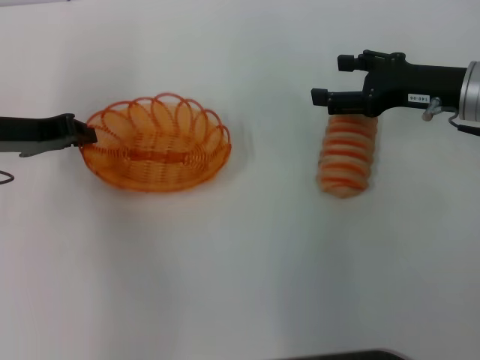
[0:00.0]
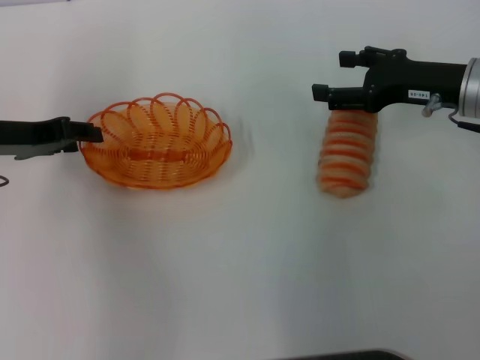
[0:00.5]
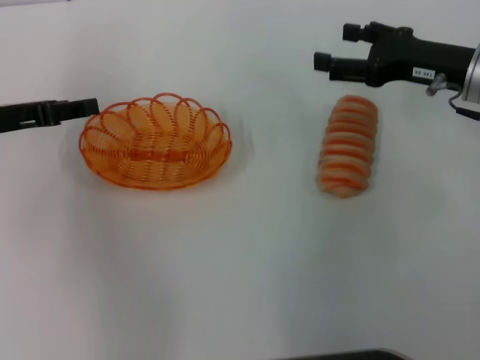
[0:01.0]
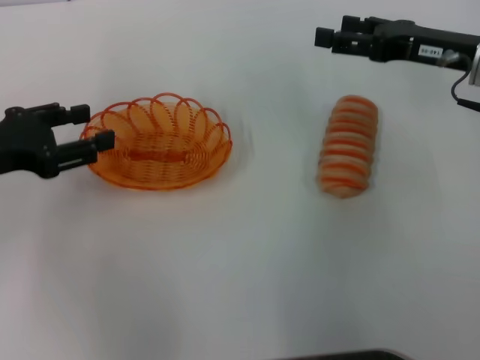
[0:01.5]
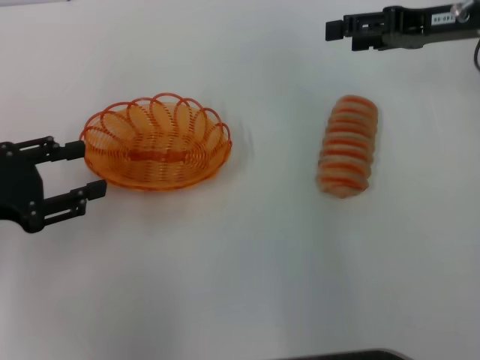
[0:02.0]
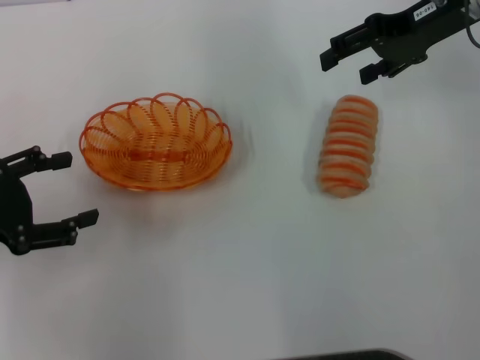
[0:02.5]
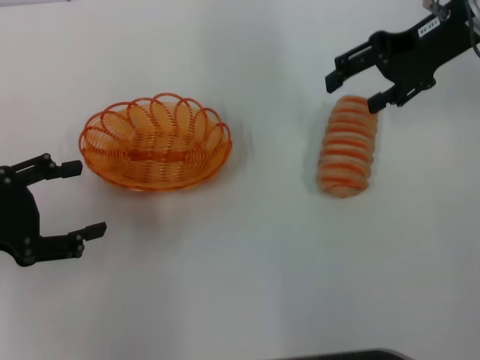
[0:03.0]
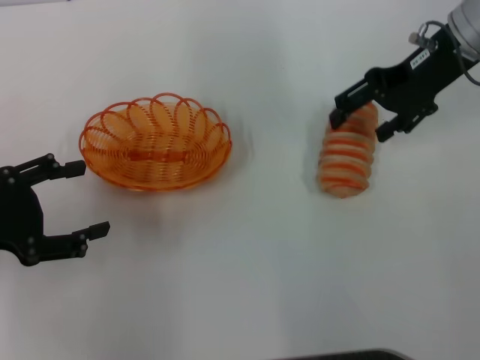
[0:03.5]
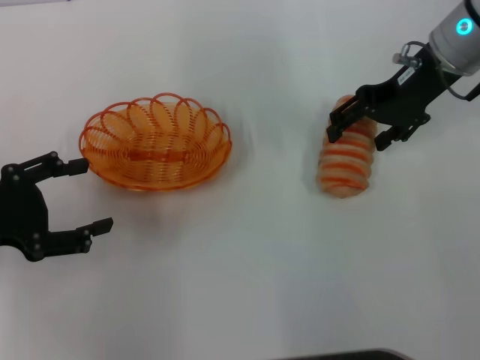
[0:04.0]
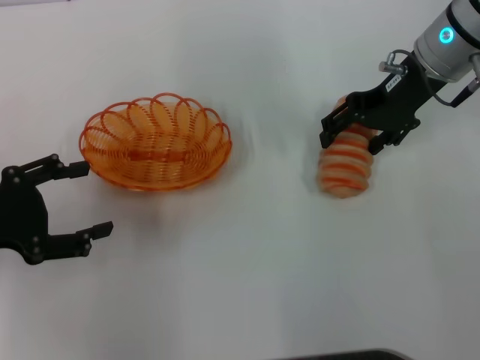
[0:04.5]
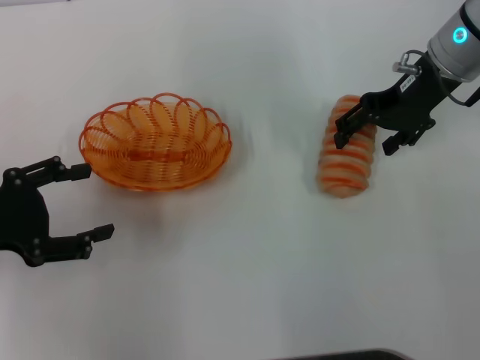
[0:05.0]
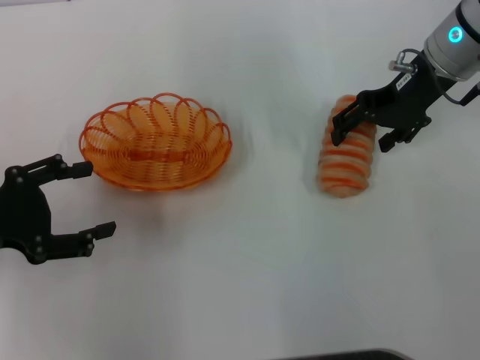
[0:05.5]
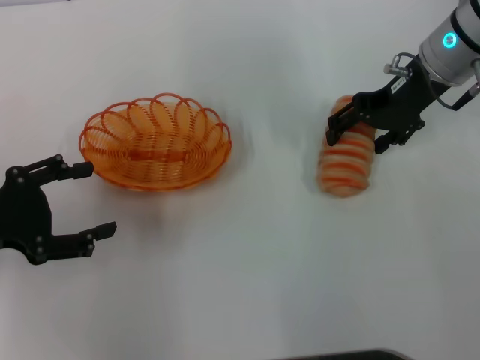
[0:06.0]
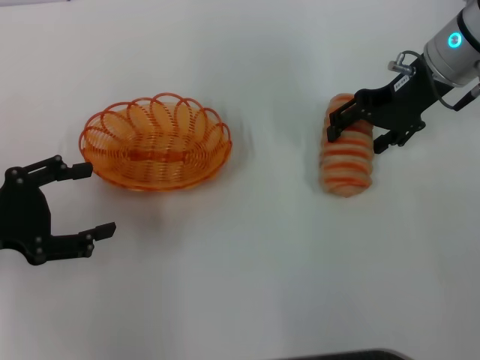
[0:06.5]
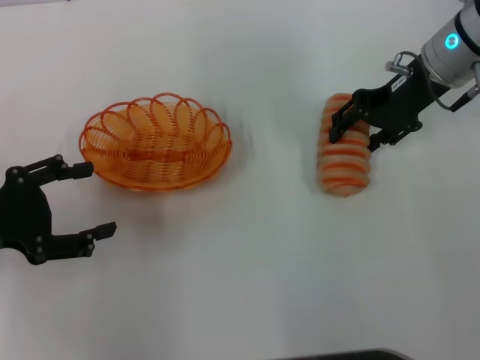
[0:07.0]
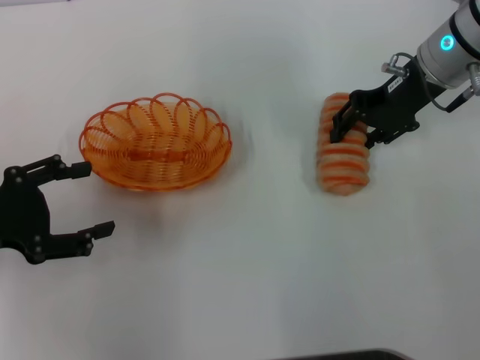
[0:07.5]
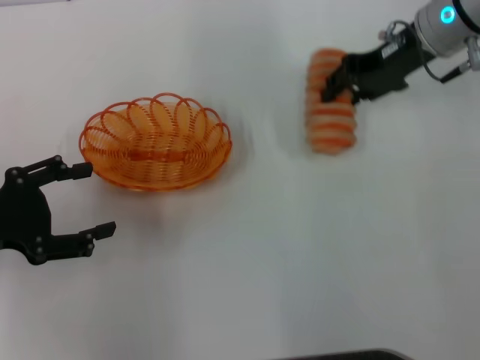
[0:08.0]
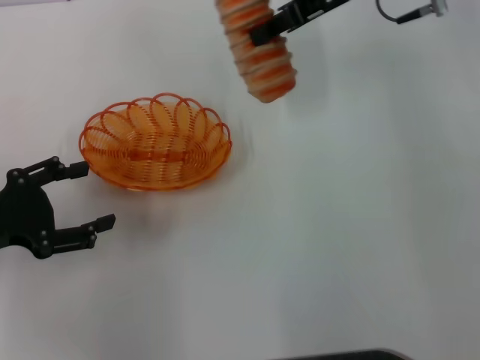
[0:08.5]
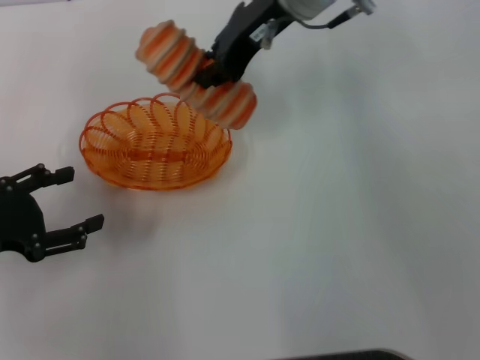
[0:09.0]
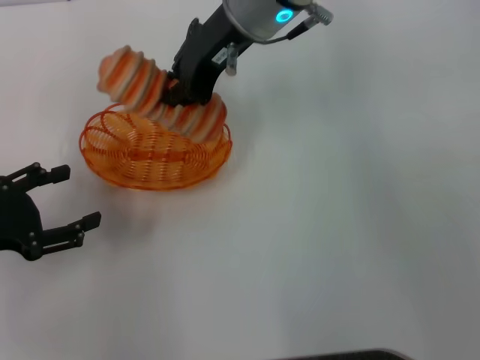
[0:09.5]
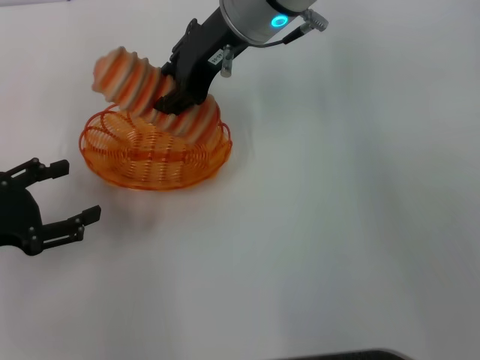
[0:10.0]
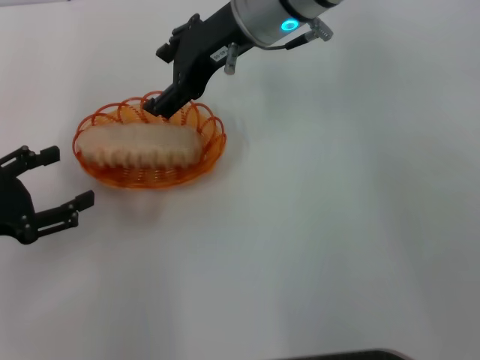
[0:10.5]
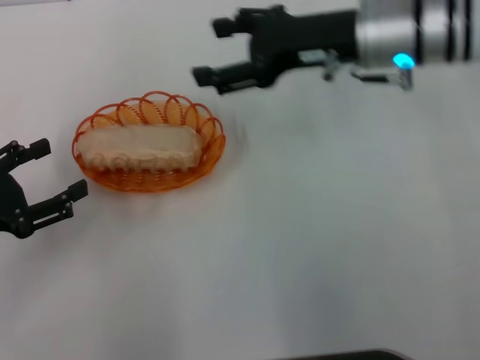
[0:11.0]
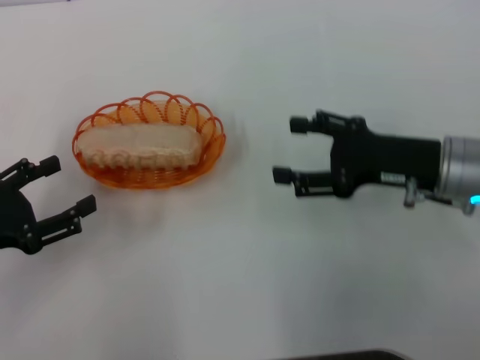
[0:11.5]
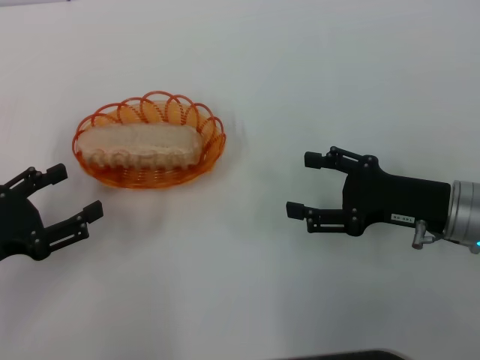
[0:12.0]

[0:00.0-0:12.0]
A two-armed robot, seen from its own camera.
Step, 0:01.0 to 0:07.5: Pick up the long bread with the right gripper.
Step, 0:08.0 to 0:10.5: Place the long bread into the basket with the right gripper.
0:00.0 to 0:02.0: The right gripper travels upward by approximately 5 cm. Meanwhile the left gripper shifts approximately 10 cm backward, and opens.
0:02.0 to 0:04.0: The right gripper moves to the left, approximately 5 cm.
0:04.0 to 0:06.0: There are only small adjustments of the grippers.
0:06.0 to 0:08.0: The right gripper closes up.
0:08.0 to 0:10.0: The right gripper goes approximately 20 cm to the left.
0:10.0 to 0:12.0: The right gripper shifts about 30 cm to the right, backward and downward, and opens.
